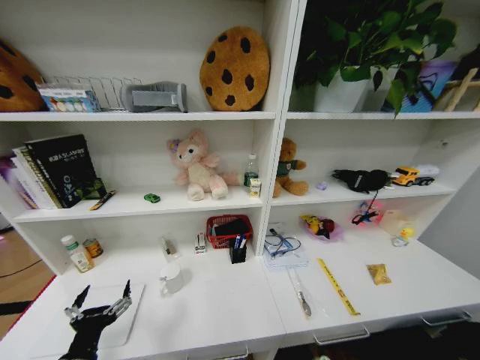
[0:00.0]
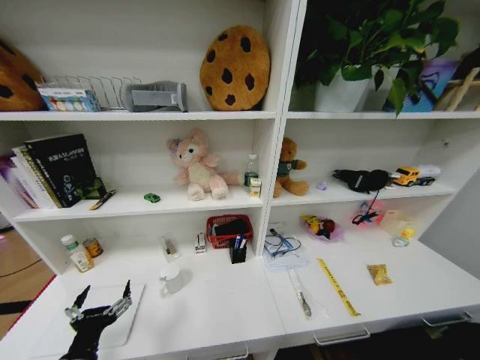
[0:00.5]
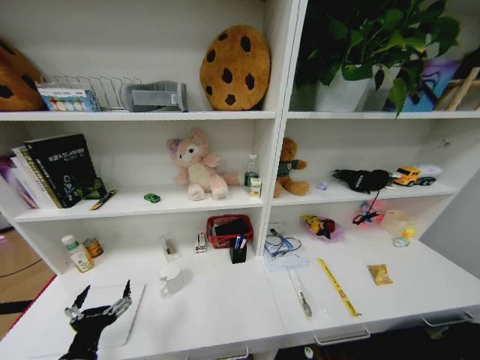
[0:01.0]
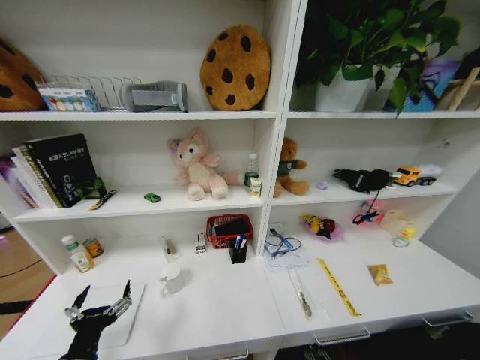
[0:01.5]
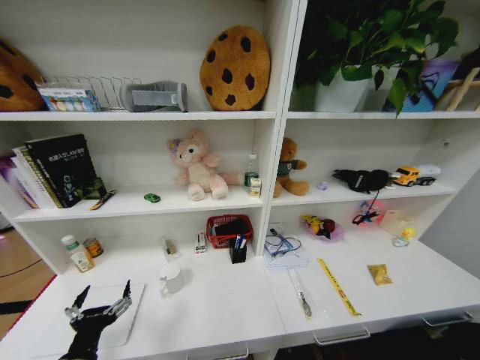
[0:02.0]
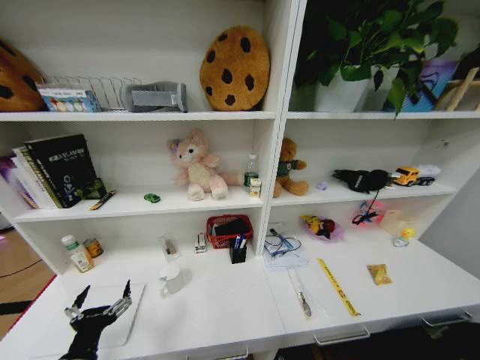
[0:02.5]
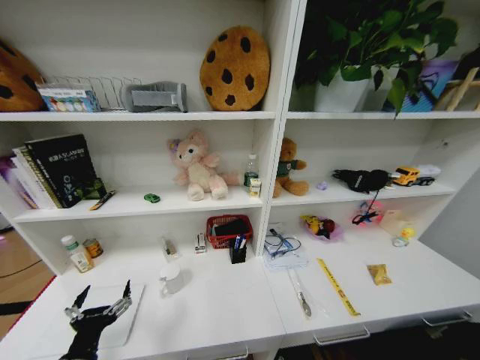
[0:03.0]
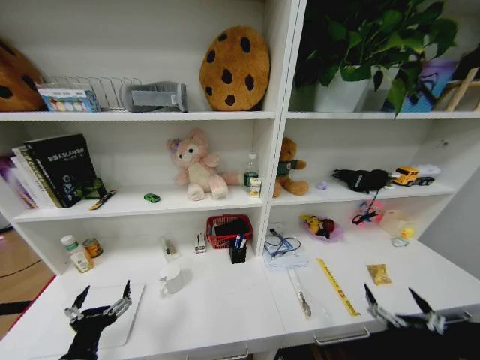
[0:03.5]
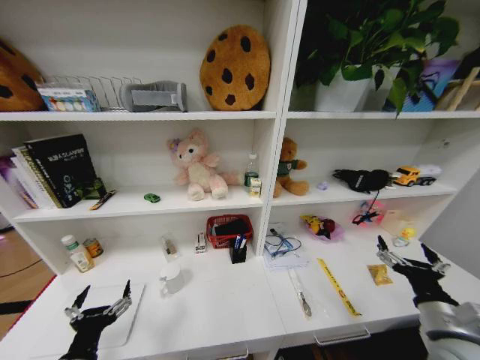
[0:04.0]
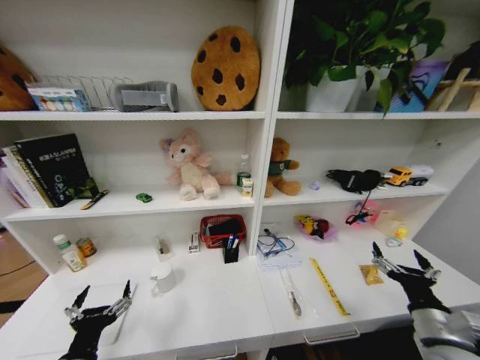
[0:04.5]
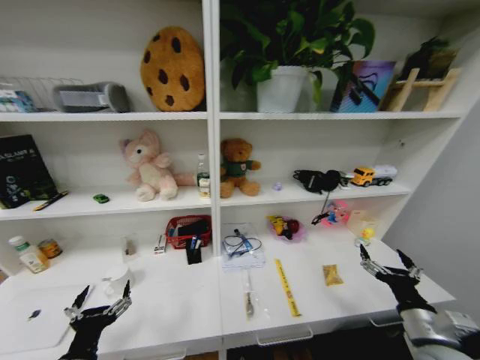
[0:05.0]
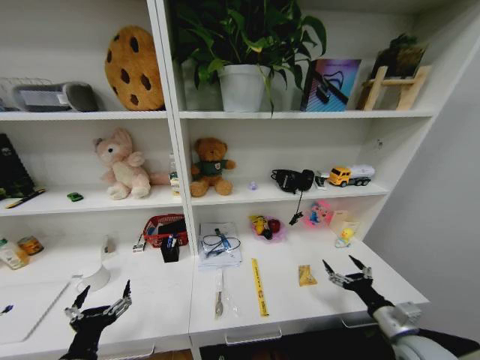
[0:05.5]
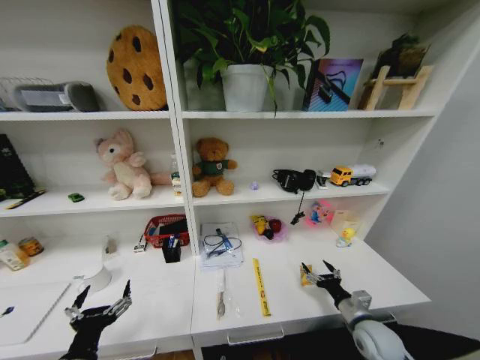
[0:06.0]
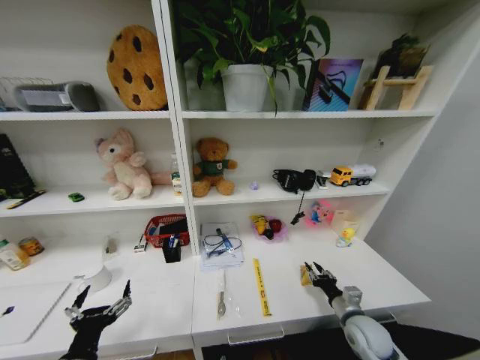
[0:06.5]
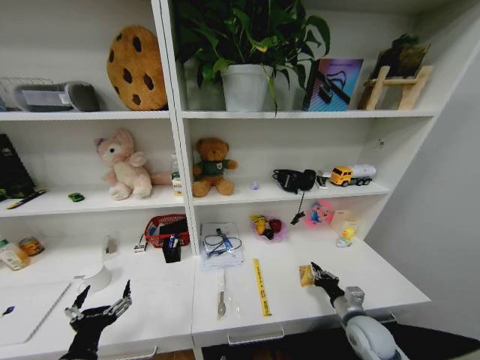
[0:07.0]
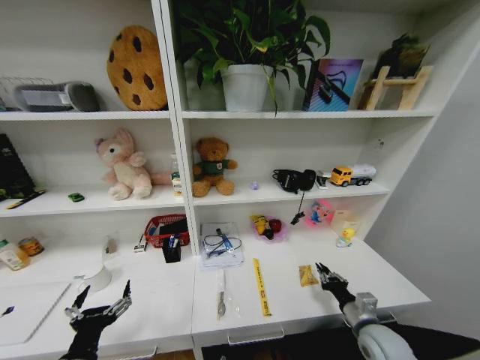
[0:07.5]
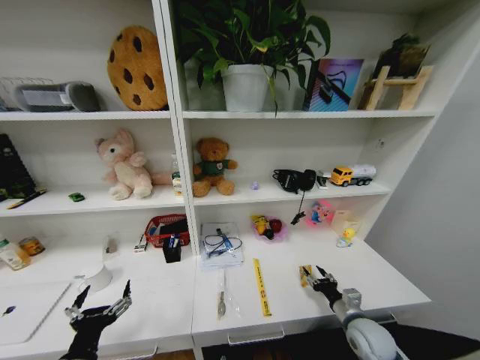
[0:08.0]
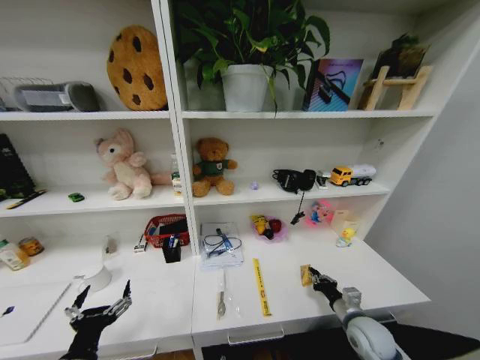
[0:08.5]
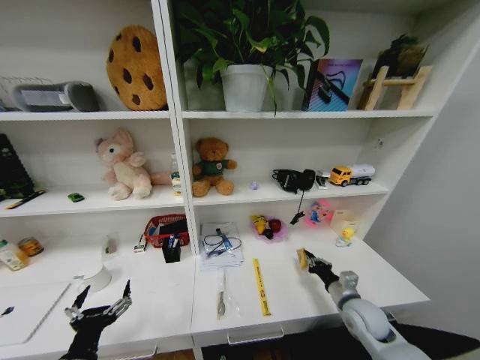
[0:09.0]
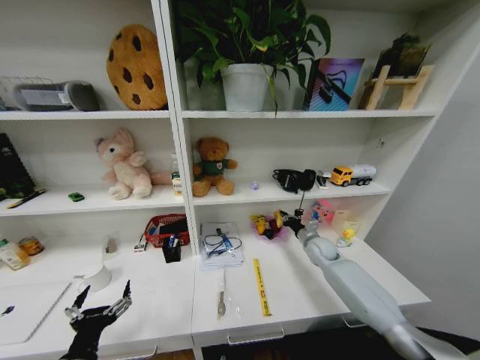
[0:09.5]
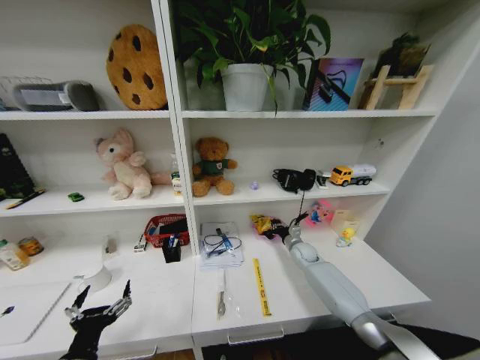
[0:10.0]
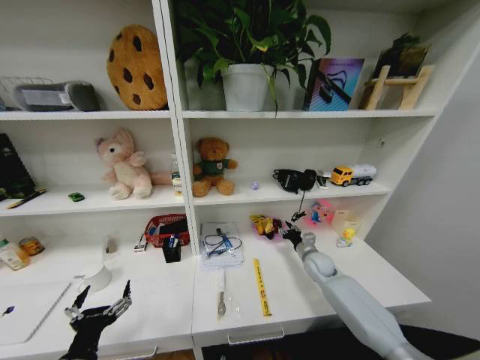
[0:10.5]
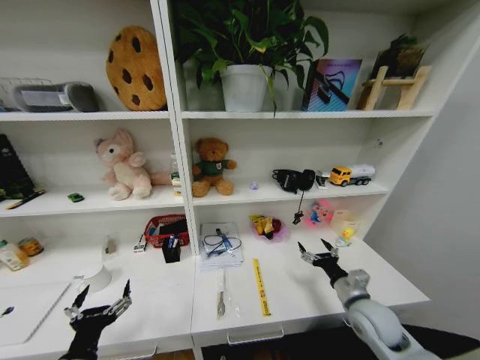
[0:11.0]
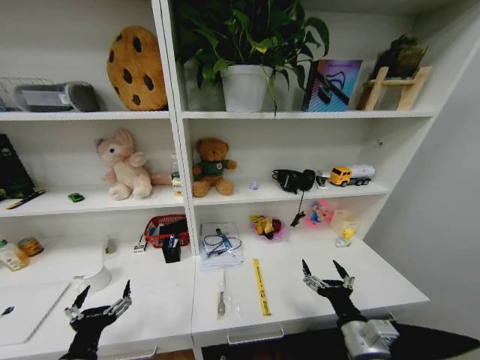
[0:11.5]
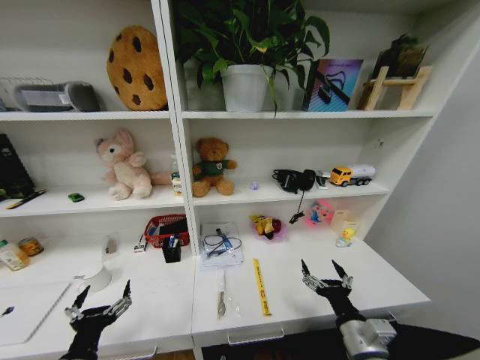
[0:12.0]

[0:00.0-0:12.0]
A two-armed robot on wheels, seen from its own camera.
Task of the whole recording: Organize the objects on the table.
0:00.0 to 0:02.0: The right gripper shifts about 30 cm downward, and opens its fingers.
0:02.0 to 0:04.0: The right gripper heads upward, covering about 50 cm.
0:04.0 to 0:06.0: The right gripper is displaced downward and forward by roughly 15 cm.
0:06.0 to 0:08.0: The right gripper closes and opens again.
0:08.0 to 0:10.0: The right gripper shifts roughly 30 cm forward, and closes up.
0:10.0 to 0:12.0: The right gripper heads backward, covering about 35 cm, and opens.

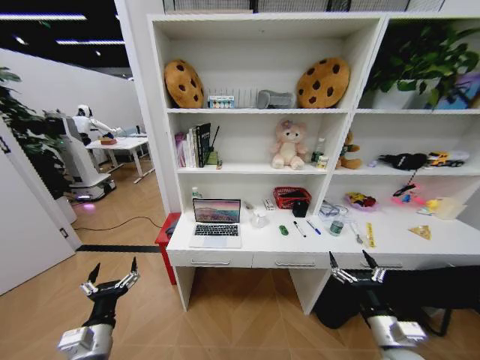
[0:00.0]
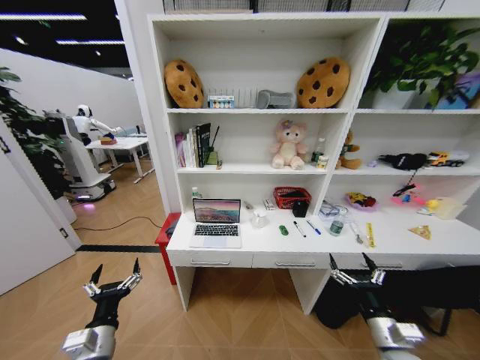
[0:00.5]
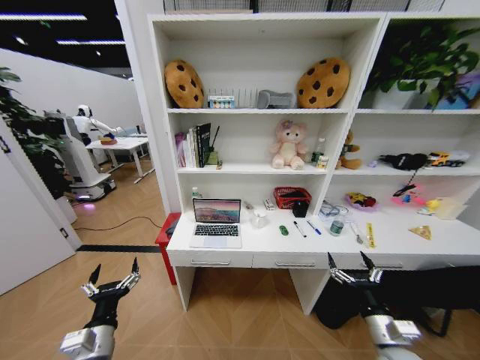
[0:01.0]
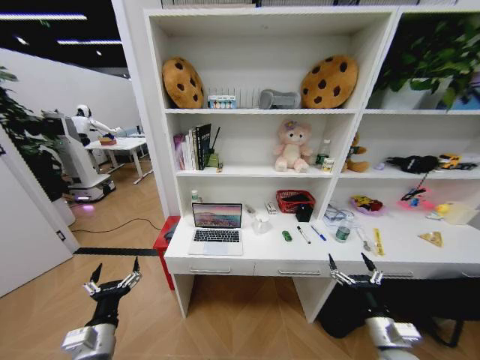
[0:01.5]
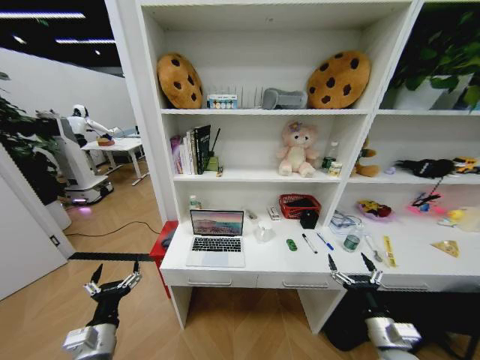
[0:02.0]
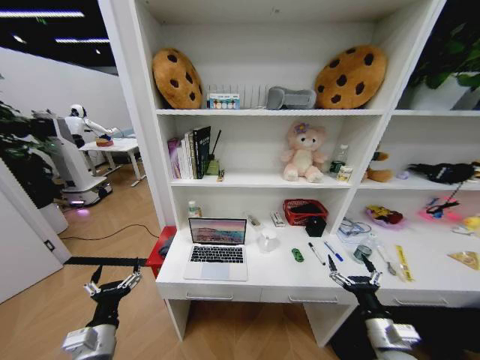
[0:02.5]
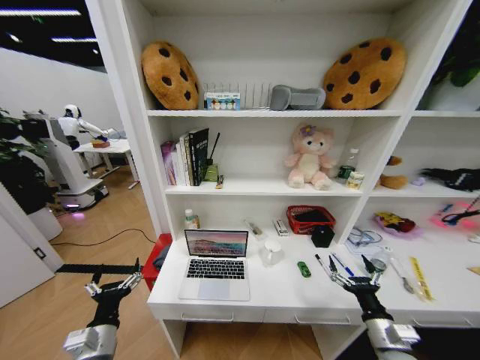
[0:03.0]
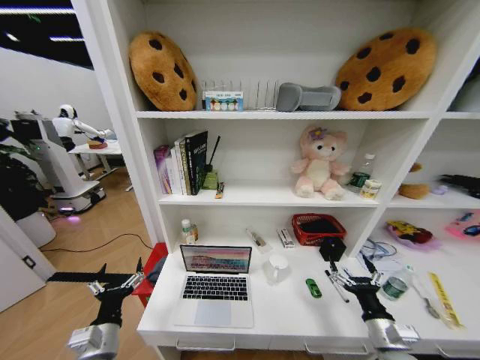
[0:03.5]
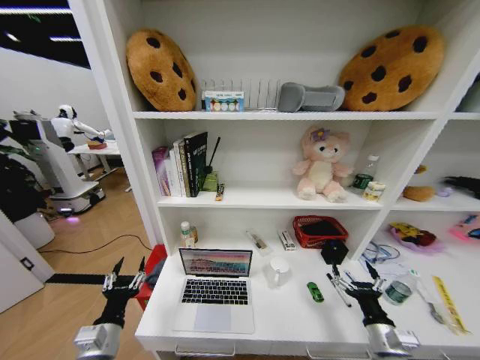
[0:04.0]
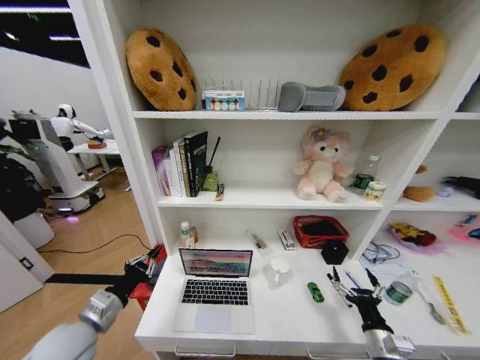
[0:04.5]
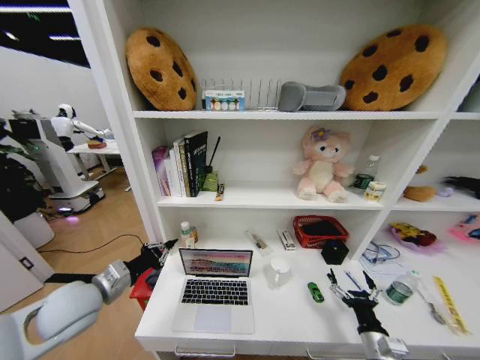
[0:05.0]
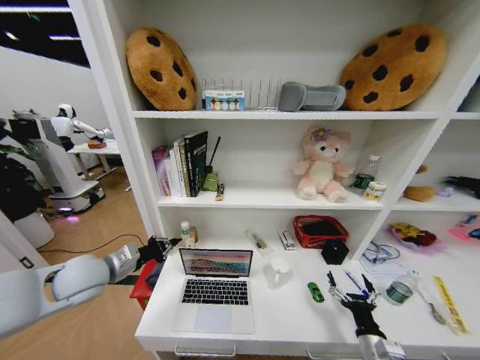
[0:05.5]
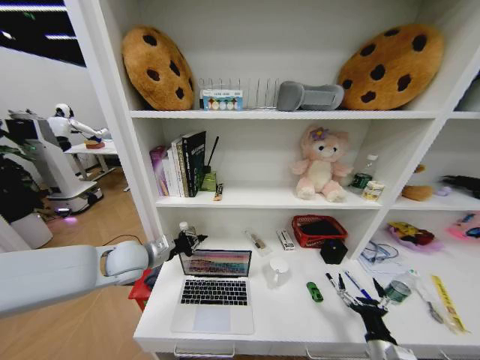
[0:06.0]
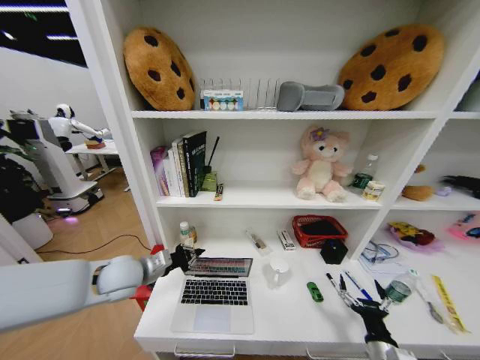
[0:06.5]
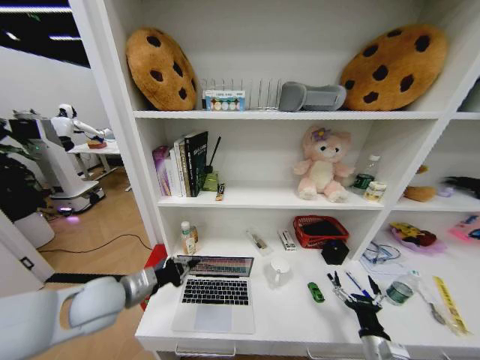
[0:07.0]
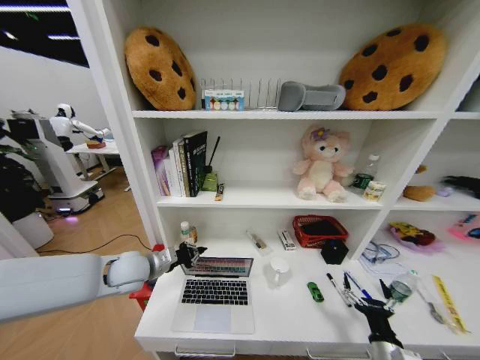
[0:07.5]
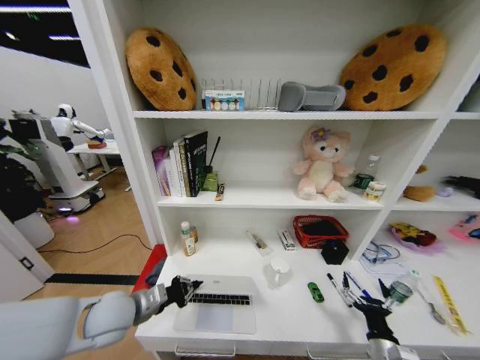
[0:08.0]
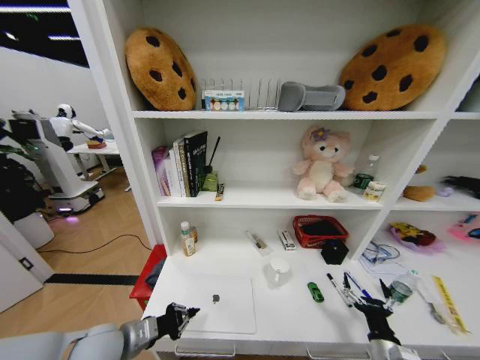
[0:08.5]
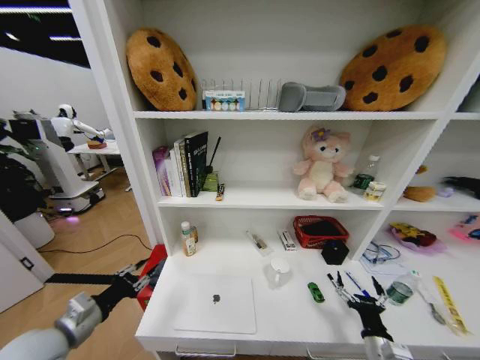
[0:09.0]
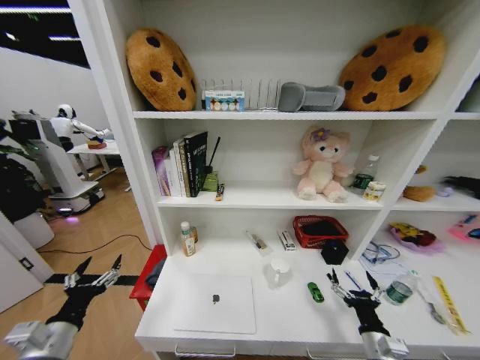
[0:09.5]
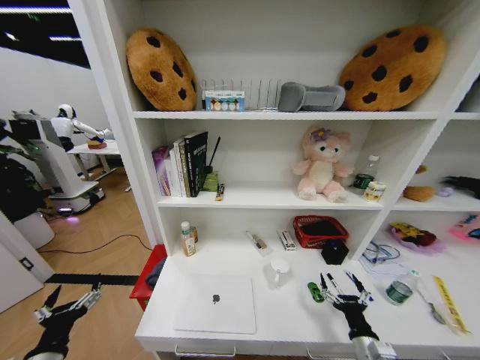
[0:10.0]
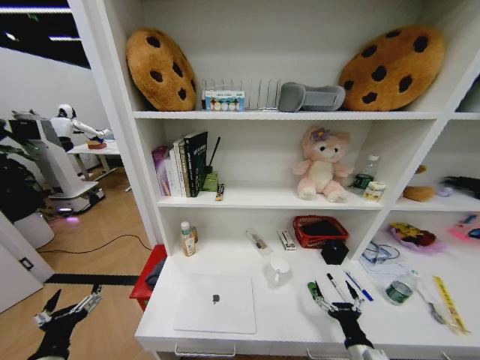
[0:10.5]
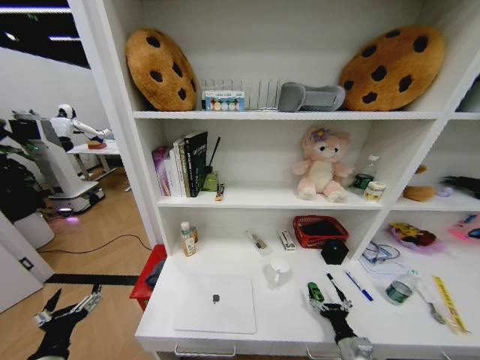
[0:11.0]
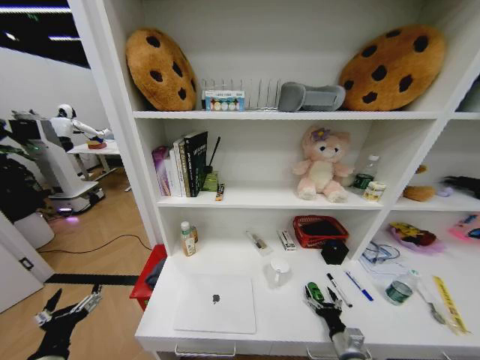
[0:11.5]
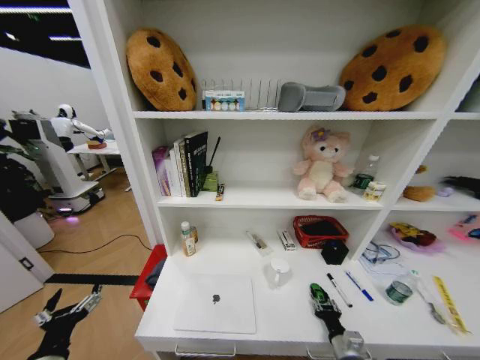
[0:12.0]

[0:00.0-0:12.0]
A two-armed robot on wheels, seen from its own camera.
Task of the whole recording: Organize the objects on the table.
0:02.0 to 0:04.0: The left gripper closes up.
0:04.0 to 0:06.0: The left gripper heads forward and upward, covering roughly 25 cm, and closes.
0:06.0 to 0:08.0: The left gripper moves forward and backward over approximately 10 cm, changing direction 2 times.
0:08.0 to 0:10.0: The left gripper shifts roughly 20 cm backward and to the left, and opens.
0:10.0 to 0:12.0: The right gripper is displaced downward by some 10 cm, and closes.

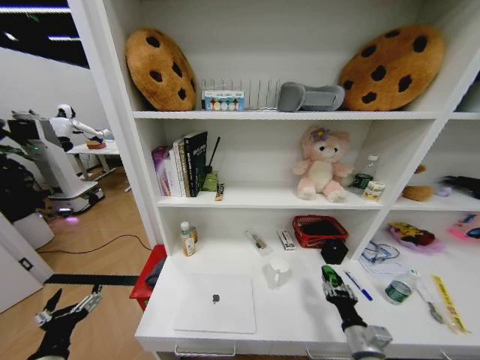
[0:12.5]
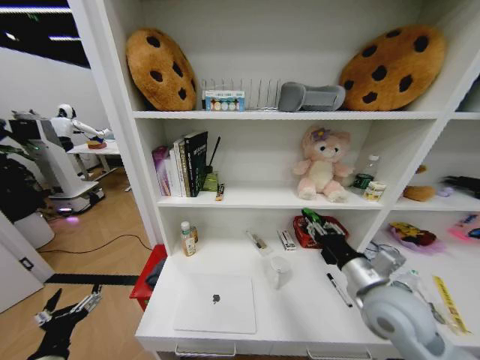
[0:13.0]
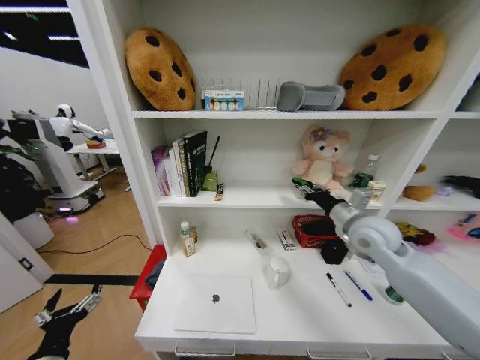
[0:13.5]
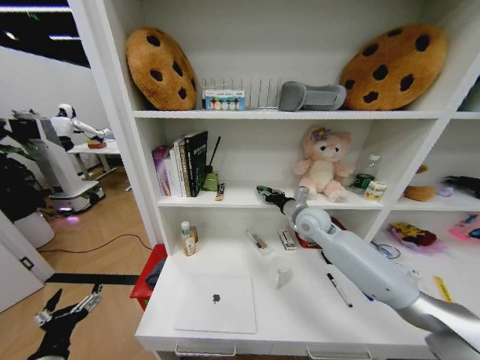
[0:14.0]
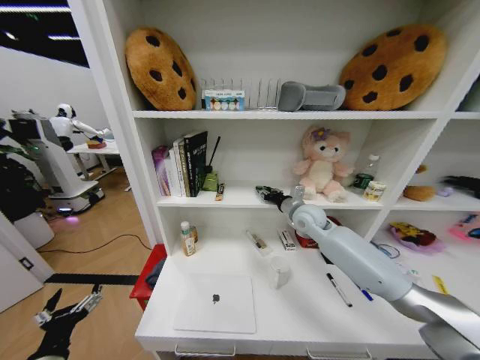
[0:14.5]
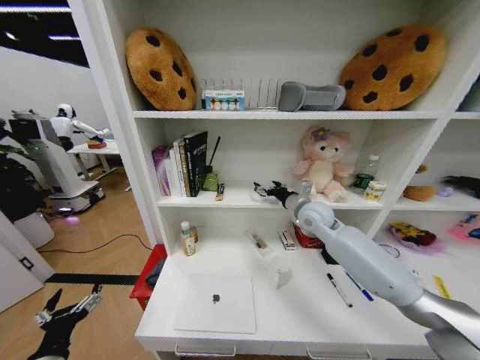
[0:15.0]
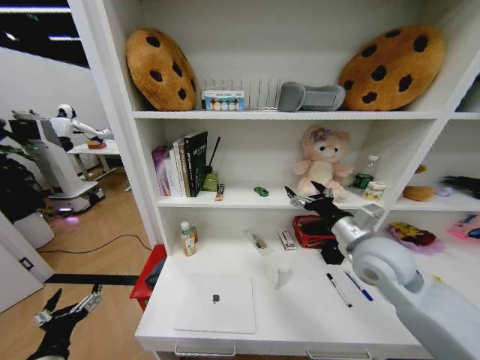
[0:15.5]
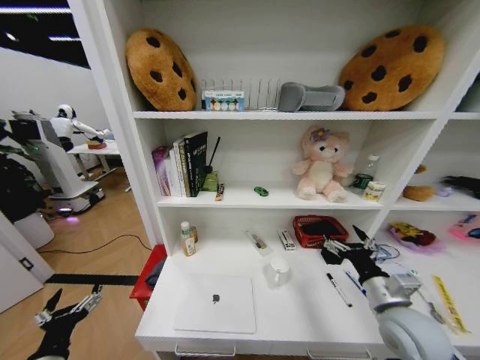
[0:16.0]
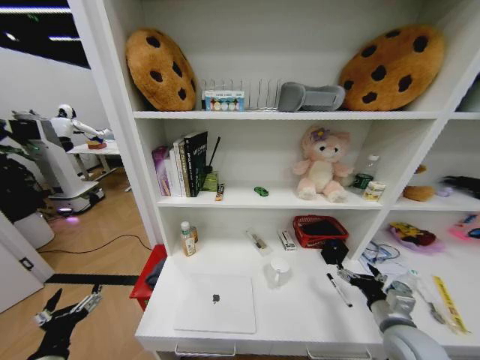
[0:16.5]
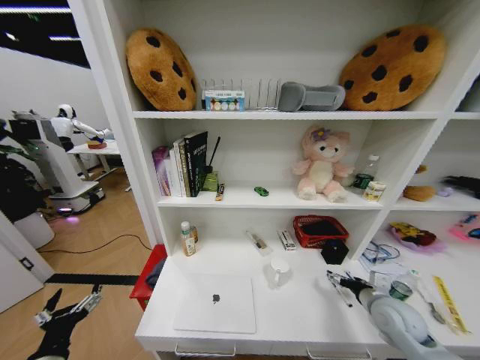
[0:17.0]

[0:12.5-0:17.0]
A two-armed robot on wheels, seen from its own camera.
Task of the whole recording: Organize the objects on the table.
0:12.5 to 0:14.5: The right gripper shifts roughly 40 cm forward and upward.
0:14.5 to 0:17.0: The right gripper goes about 30 cm backward, to the right and downward, and opens its fingers.
